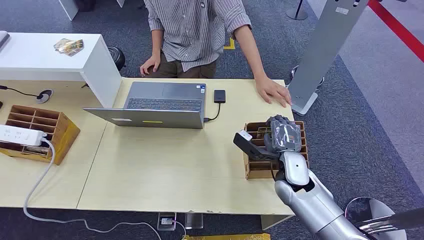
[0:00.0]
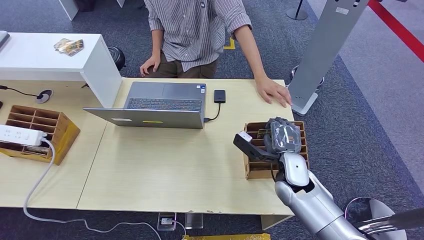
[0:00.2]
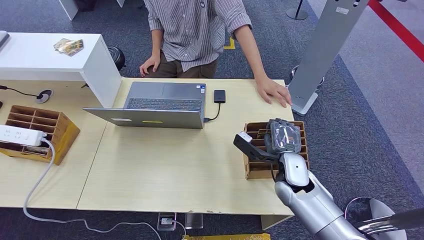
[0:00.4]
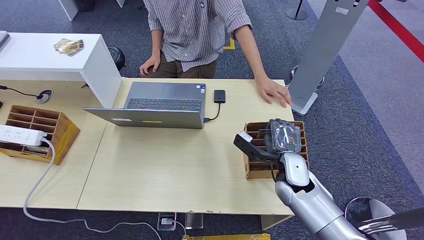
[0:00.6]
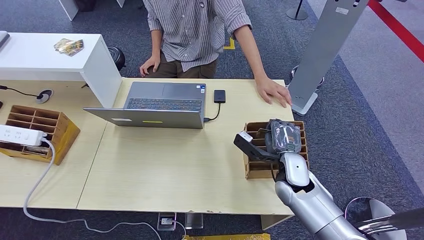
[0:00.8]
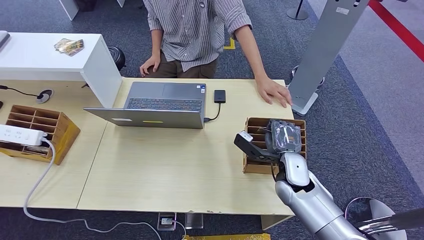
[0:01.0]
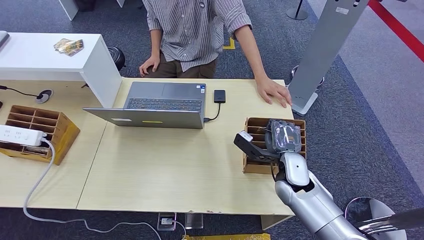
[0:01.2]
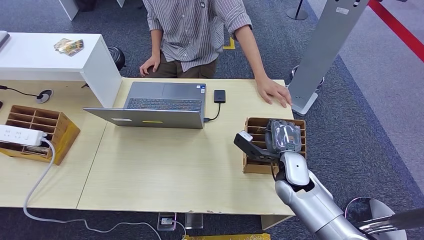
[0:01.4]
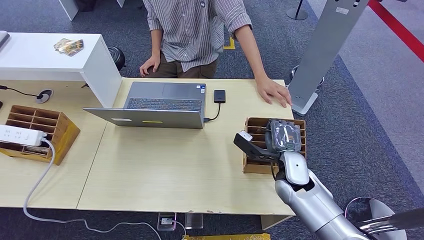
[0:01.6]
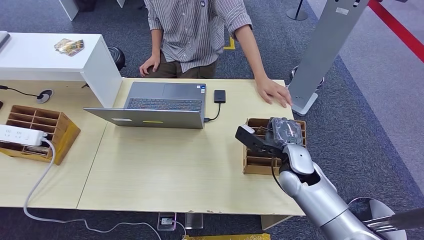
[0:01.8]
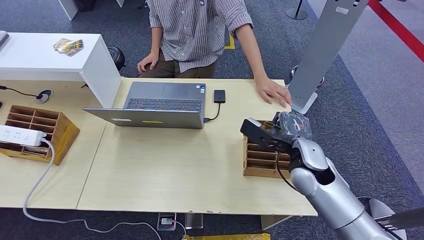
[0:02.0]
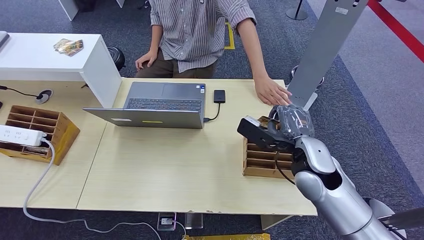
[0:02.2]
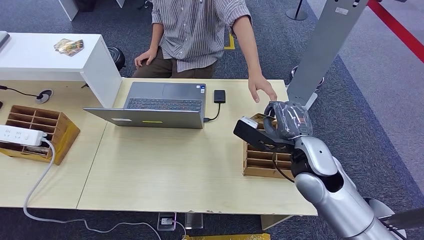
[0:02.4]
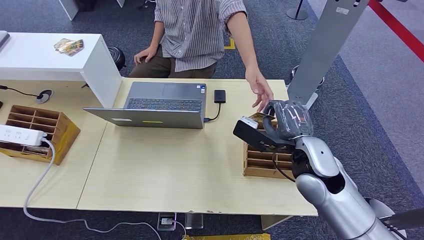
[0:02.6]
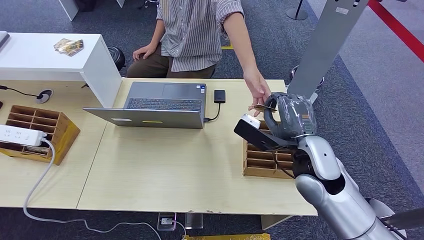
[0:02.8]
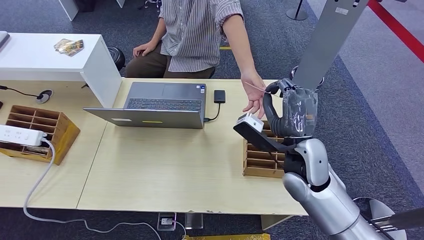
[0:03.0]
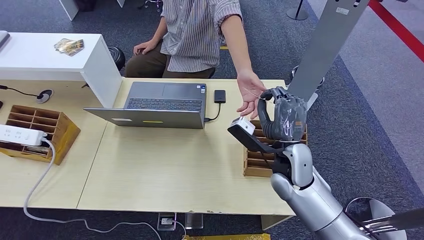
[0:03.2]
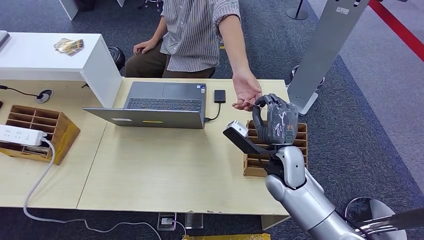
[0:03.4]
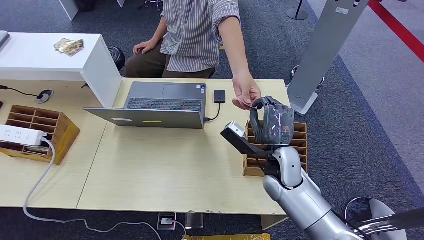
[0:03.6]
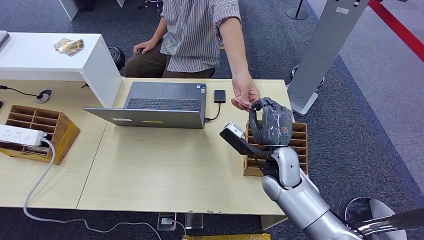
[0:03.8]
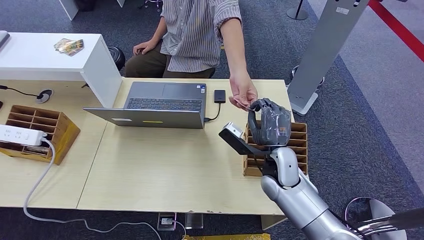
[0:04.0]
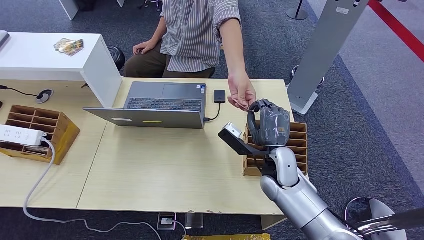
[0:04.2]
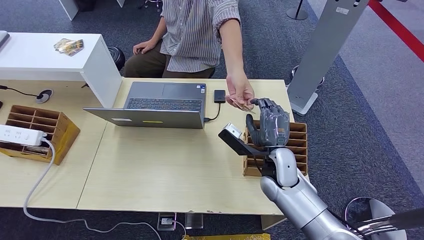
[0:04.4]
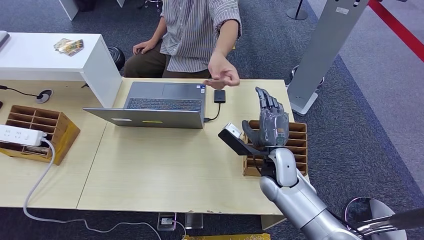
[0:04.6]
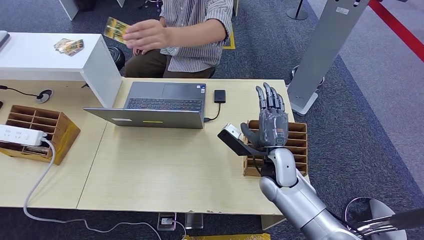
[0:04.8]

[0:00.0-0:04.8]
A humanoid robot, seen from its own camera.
Step, 0:00.0 to 0:02.2: Pick up the key card from the card box.
Step, 0:03.0 to 0:04.8: Hand the key card to the target.
0:01.6 to 0:03.2: The right hand goes about 5 cm upward.
0:03.2 to 0:04.8: The right hand is displaced downward by some 5 cm.
